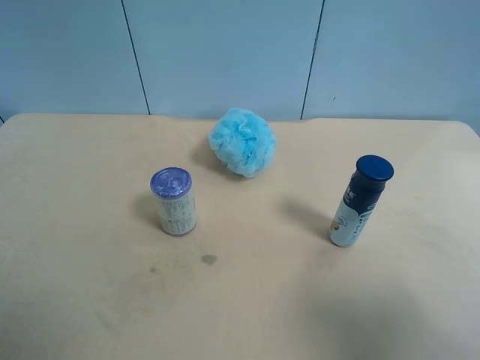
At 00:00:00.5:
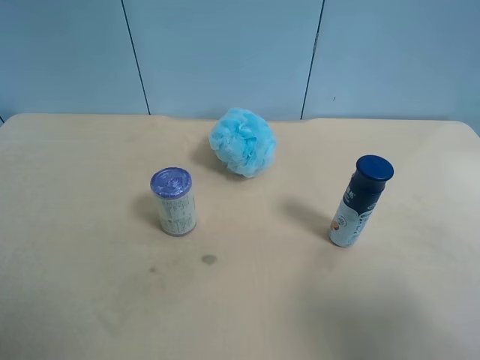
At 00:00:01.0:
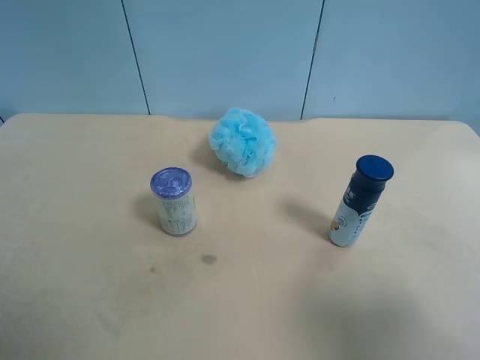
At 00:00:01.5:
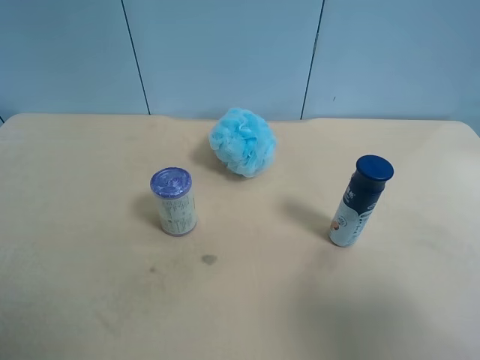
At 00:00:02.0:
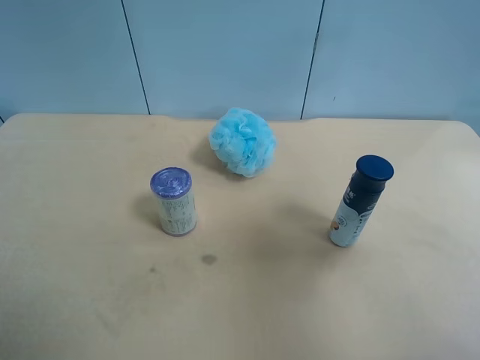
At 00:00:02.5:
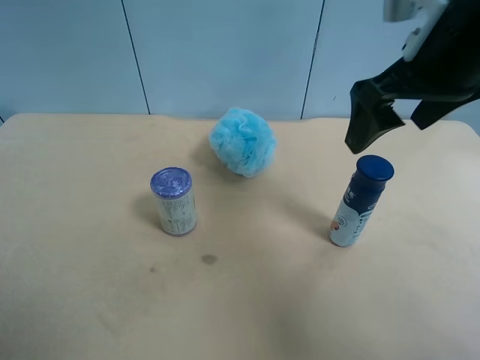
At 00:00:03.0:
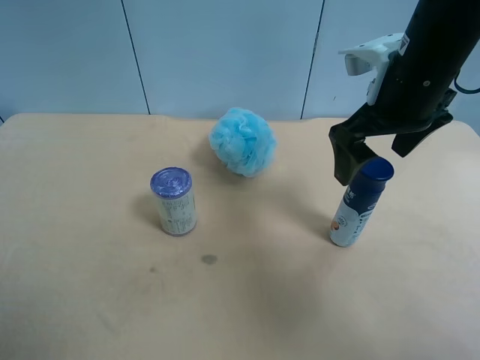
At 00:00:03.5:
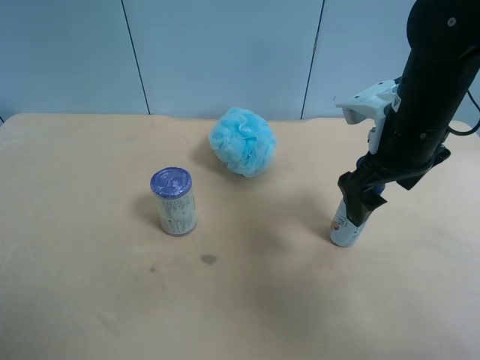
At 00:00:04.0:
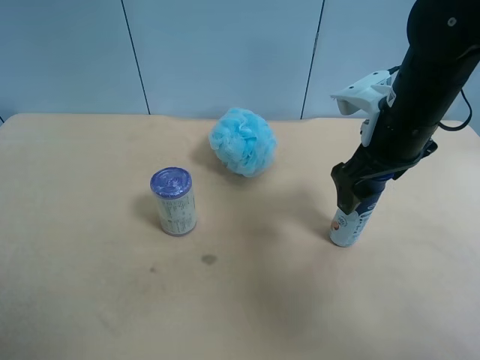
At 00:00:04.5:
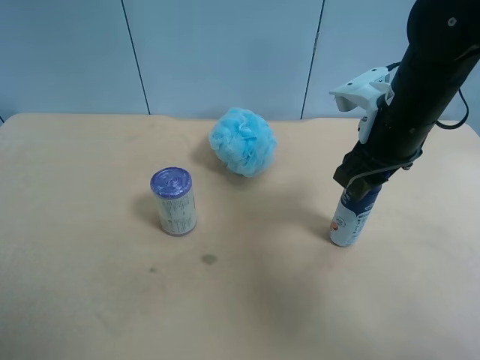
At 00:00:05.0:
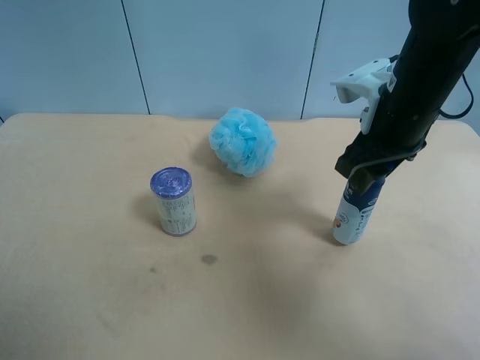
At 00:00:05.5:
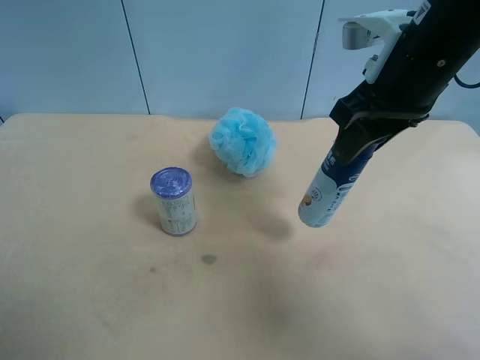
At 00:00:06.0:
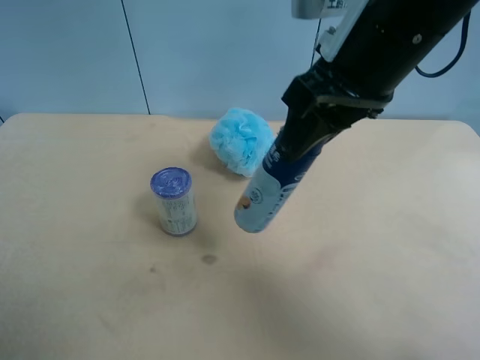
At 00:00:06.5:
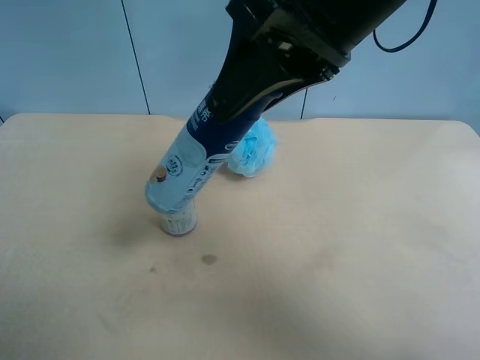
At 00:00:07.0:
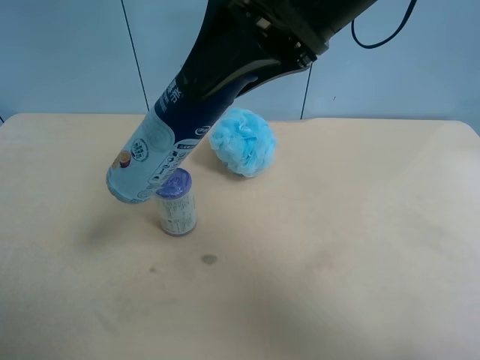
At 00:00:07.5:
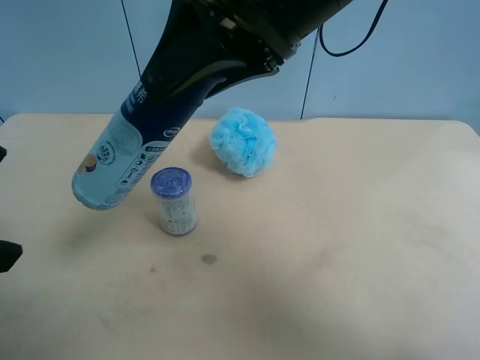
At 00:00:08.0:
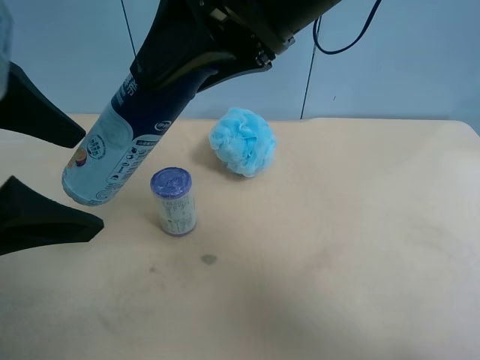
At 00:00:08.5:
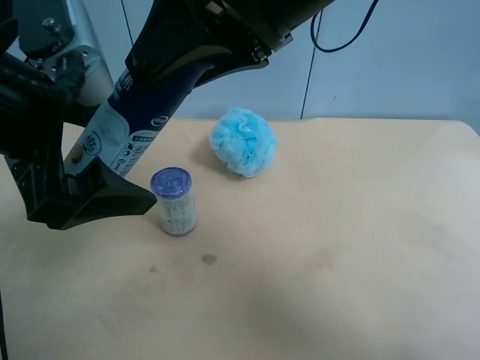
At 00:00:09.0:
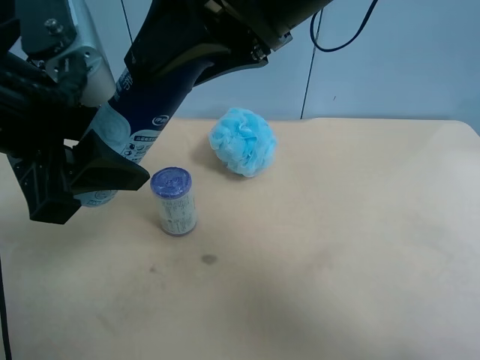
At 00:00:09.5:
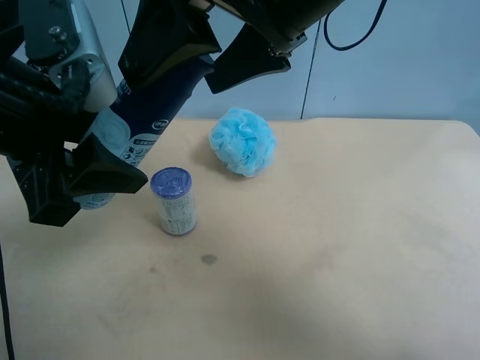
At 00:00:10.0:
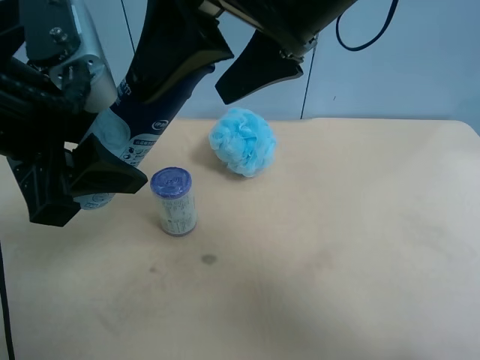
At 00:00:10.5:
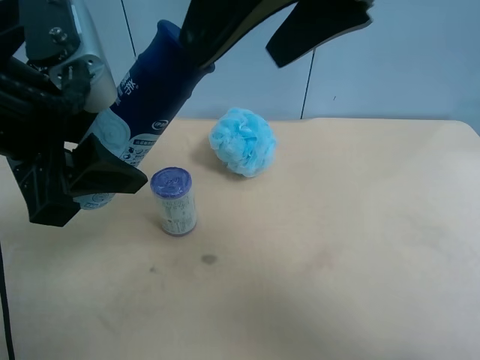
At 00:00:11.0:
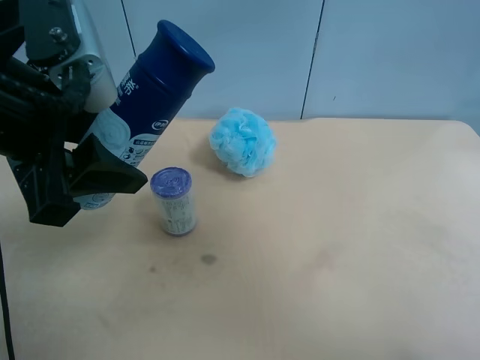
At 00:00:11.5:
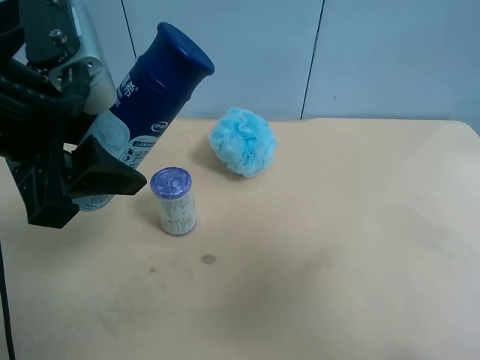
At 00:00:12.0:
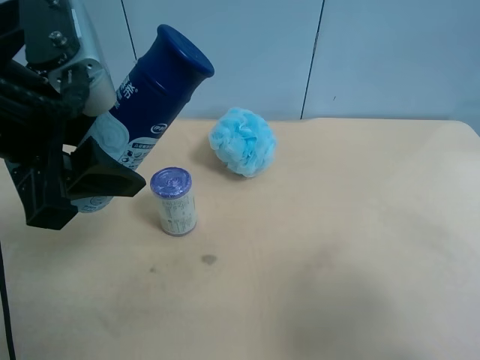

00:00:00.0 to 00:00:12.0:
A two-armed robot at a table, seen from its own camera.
Task of the whole recording: use the right gripper to pick up the item and transfer it from the right gripper to the left gripper.
00:00:00.0 to 00:00:02.0: The right gripper moves forward and upward, approximately 15 cm.
00:00:02.0 to 00:00:04.0: The right gripper is displaced forward, downward and to the left by some 25 cm.
00:00:04.0 to 00:00:06.0: The right gripper travels upward and to the left by roughly 15 cm, and closes.
00:00:06.0 to 00:00:08.0: The left gripper is displaced forward, to the right and upward by about 20 cm. The right gripper moves to the left, roughly 5 cm.
00:00:08.0 to 00:00:10.0: The right gripper opens, while the left gripper closes.
00:00:10.0 to 00:00:12.0: The right gripper moves to the right, backward and downward, some 30 cm.

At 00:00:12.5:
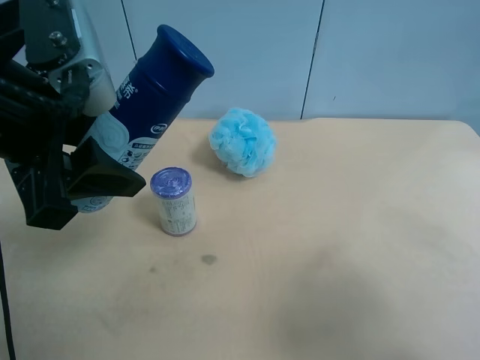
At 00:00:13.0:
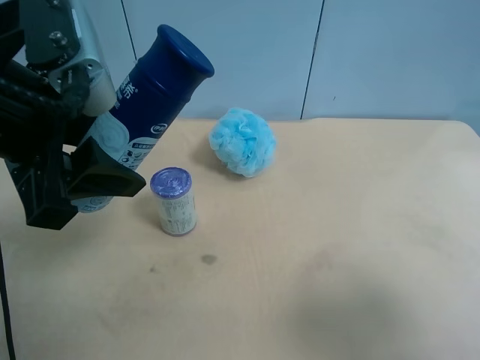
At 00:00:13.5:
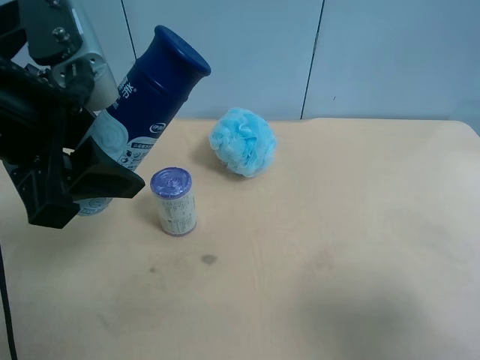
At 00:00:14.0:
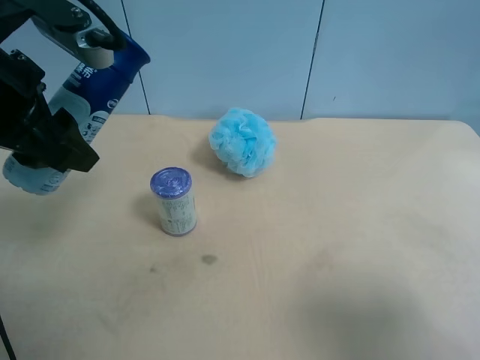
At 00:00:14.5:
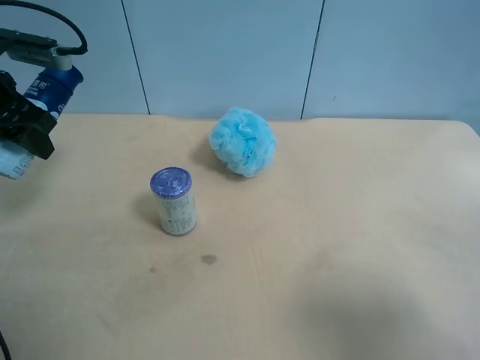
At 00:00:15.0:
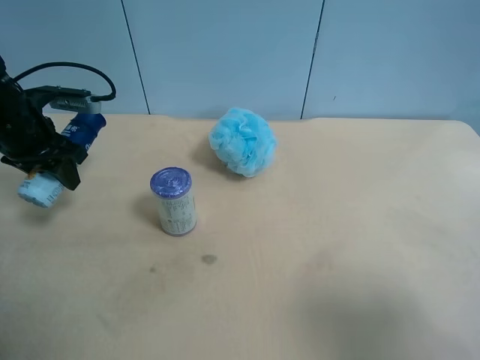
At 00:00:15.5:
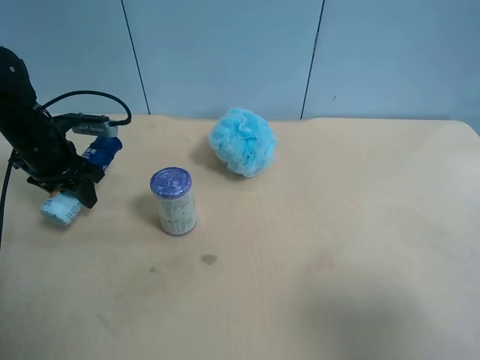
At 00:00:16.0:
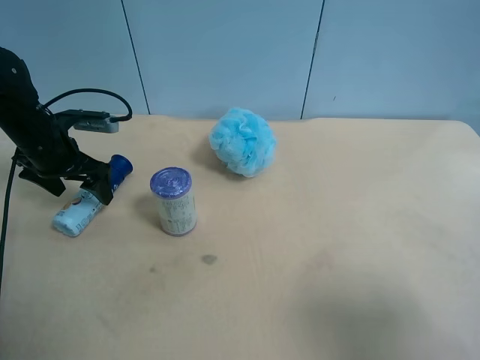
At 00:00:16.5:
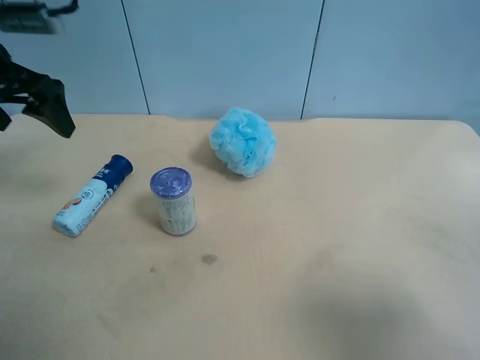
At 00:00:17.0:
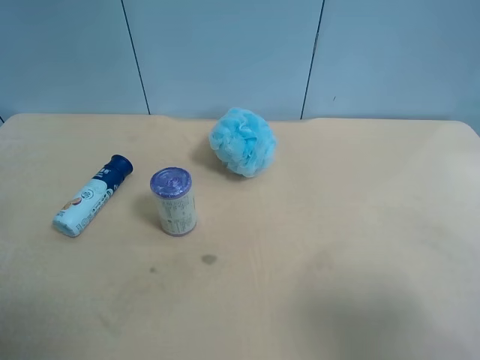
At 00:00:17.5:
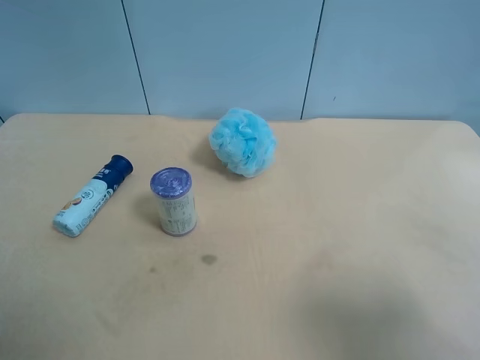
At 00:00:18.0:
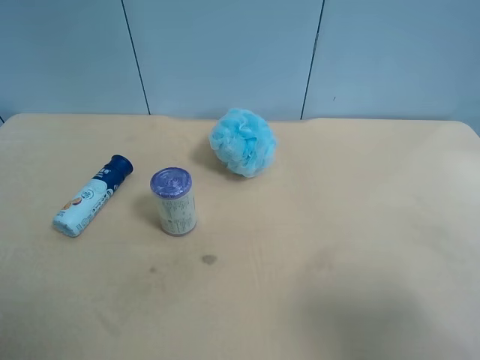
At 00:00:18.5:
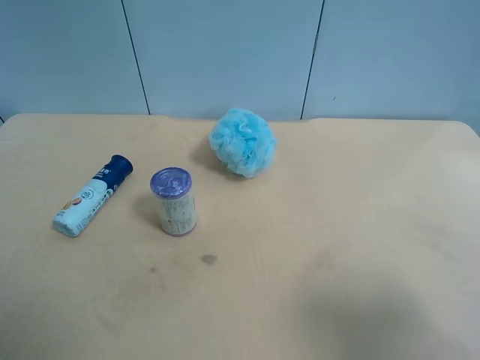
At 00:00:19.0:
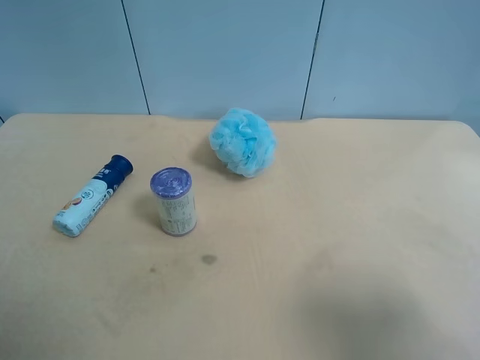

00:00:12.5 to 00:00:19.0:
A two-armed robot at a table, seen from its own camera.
Task of the whole recording: use the right gripper to pick up the item and transfer it from the right gripper to the left gripper.
00:00:12.5 to 00:00:14.5: The left gripper shifts roughly 20 cm forward and to the left.
00:00:14.5 to 00:00:17.0: The left gripper travels backward and upward by roughly 15 cm, and opens its fingers.
